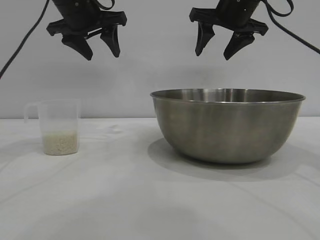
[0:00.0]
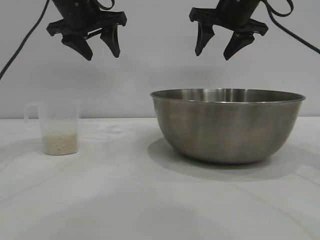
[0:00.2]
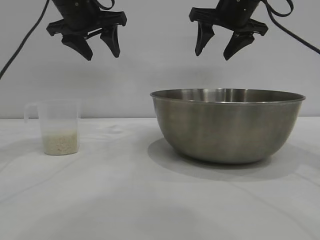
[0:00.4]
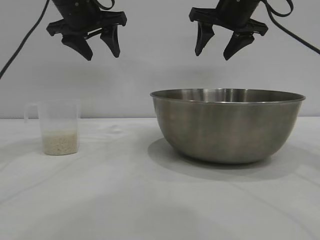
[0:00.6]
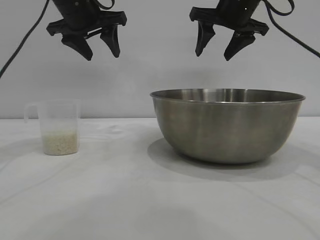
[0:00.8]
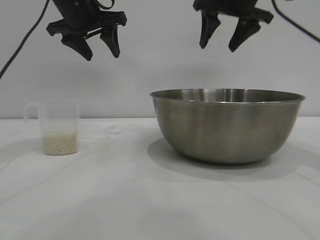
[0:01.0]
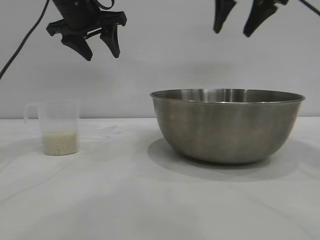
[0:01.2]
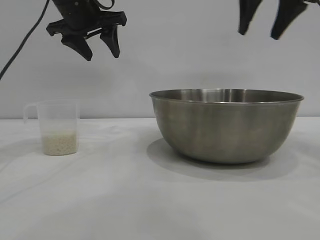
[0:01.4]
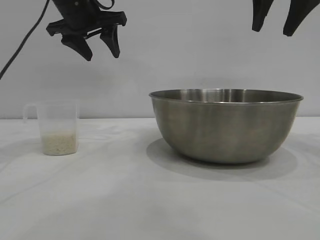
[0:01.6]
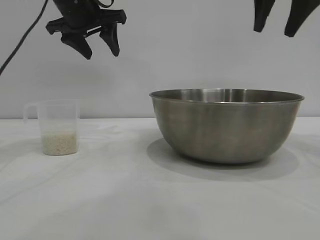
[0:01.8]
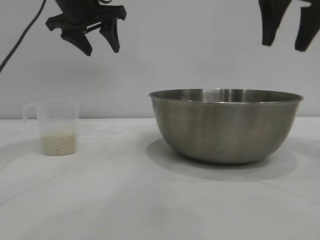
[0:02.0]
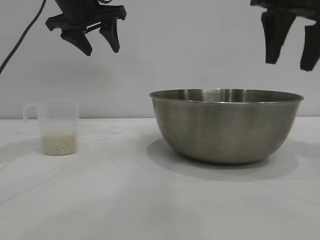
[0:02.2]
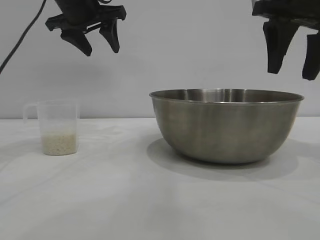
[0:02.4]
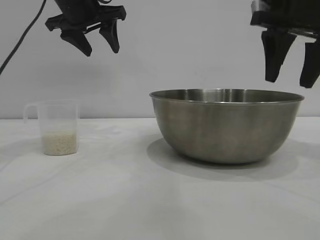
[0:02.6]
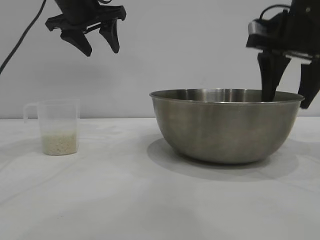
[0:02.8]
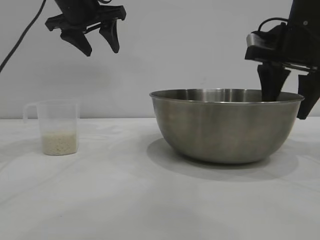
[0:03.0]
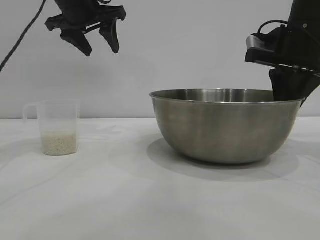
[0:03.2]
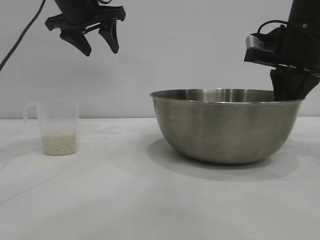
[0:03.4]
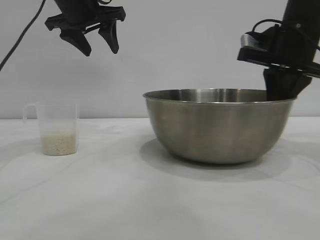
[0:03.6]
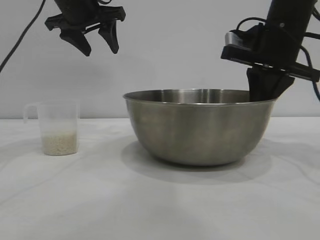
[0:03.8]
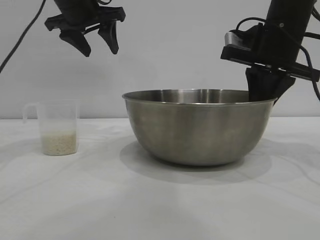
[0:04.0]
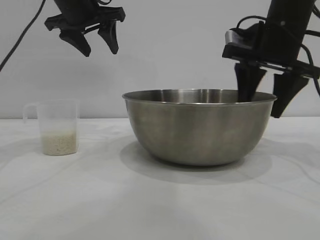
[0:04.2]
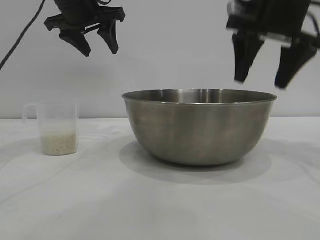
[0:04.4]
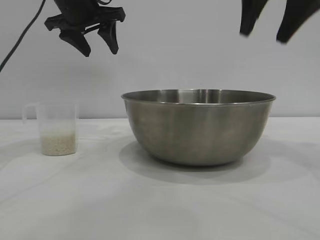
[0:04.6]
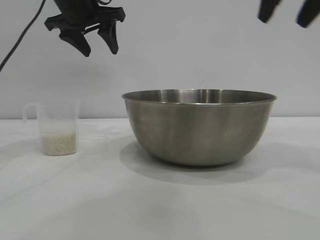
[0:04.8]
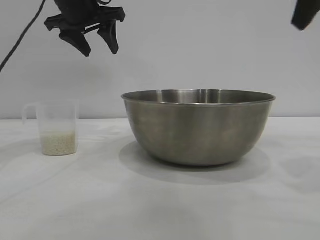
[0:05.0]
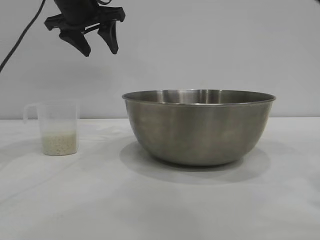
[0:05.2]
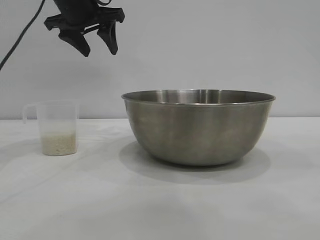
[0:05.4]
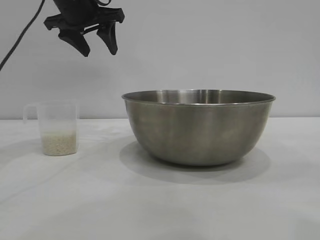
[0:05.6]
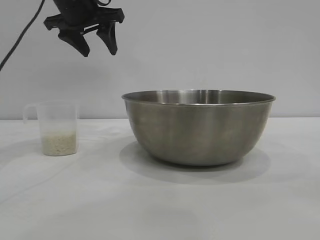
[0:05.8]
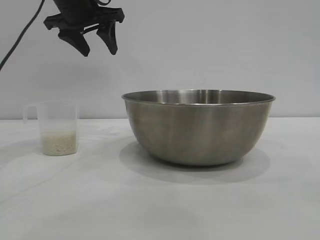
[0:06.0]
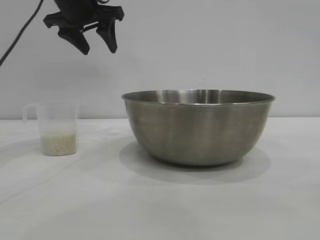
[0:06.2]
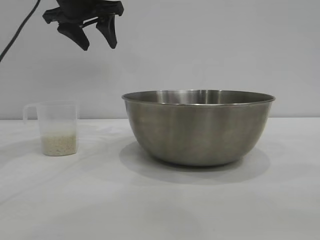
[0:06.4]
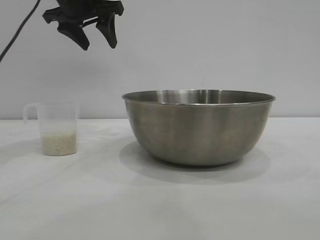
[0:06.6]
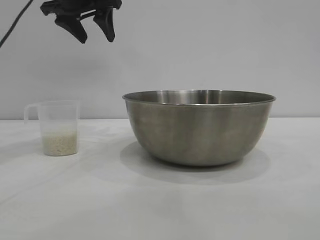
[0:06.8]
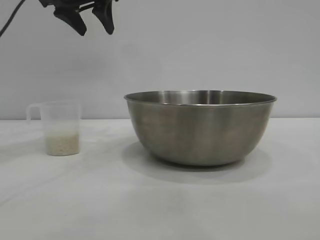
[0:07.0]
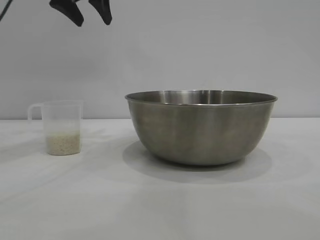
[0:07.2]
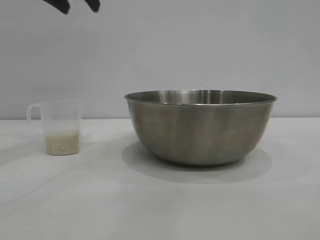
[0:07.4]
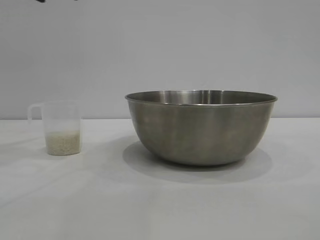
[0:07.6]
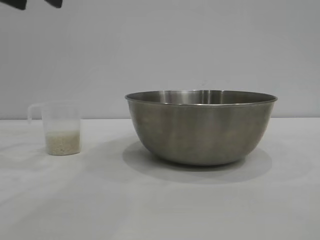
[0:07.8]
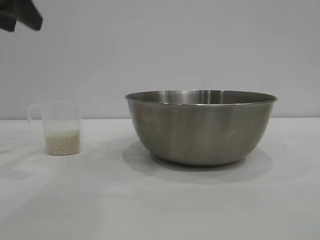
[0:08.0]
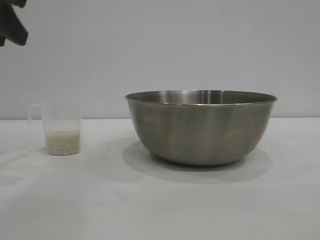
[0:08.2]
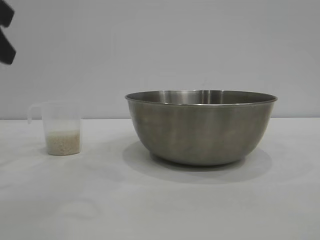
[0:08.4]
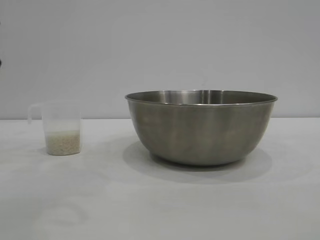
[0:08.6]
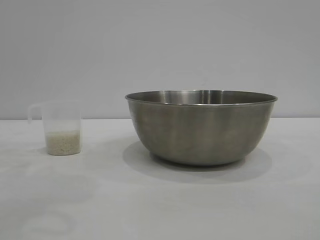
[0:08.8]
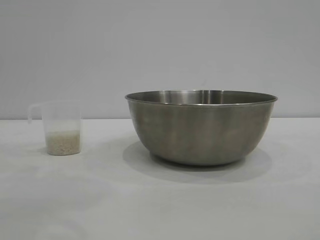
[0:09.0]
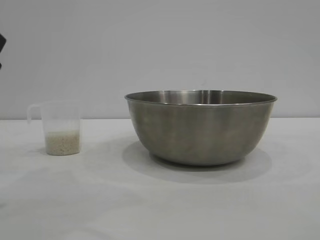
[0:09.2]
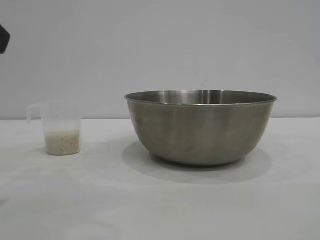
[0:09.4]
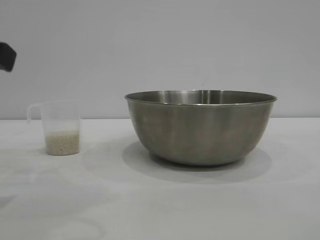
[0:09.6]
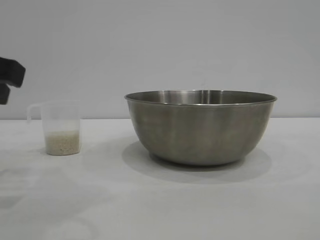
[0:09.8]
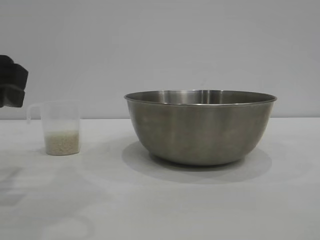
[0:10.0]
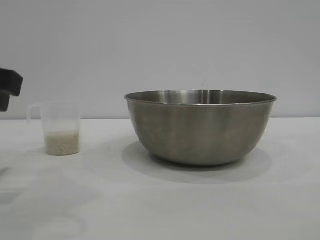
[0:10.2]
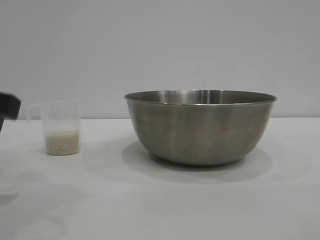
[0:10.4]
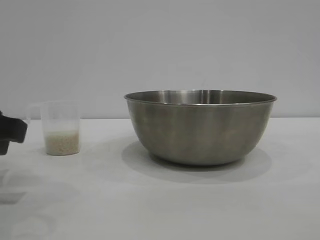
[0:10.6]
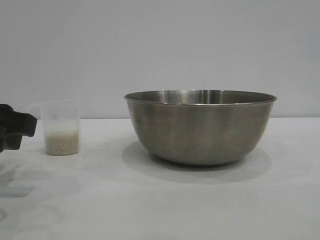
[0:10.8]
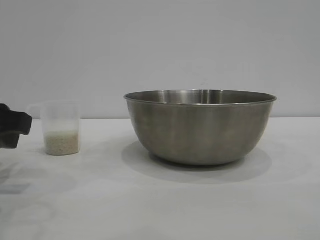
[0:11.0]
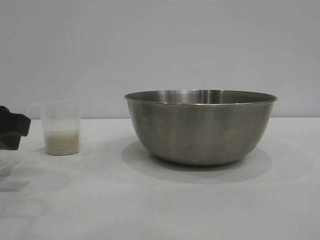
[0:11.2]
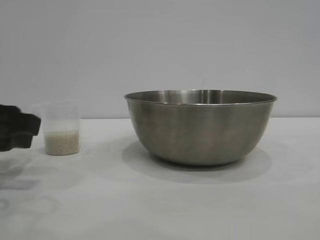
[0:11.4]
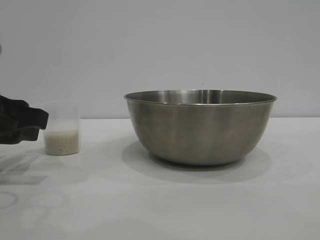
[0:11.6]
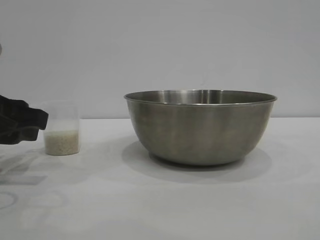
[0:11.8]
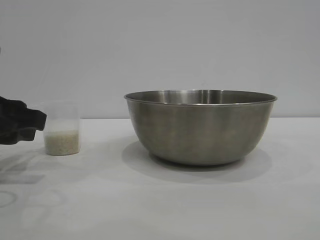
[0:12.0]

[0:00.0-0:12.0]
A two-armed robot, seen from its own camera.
Task of the whole recording: the right gripper grasp the rice container and place it in the center of the table, the left gripper grasp the rice scoop and pour the rice into the rice container.
Step, 0:00.0 to 0:04.2: Move the bowl to the center of view with the right gripper.

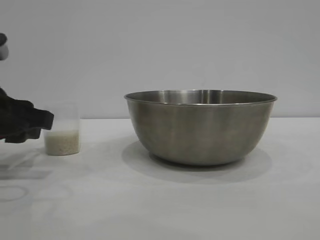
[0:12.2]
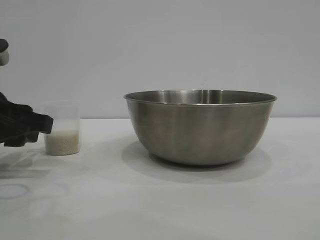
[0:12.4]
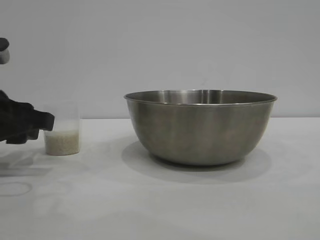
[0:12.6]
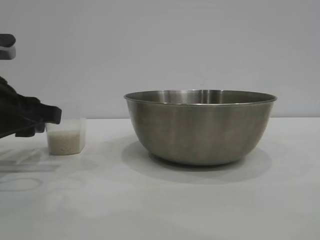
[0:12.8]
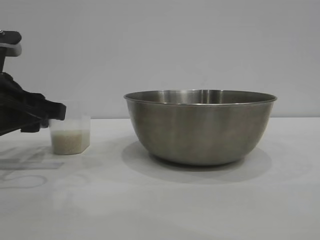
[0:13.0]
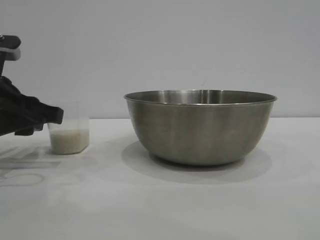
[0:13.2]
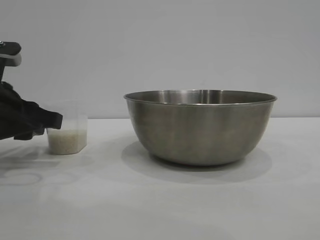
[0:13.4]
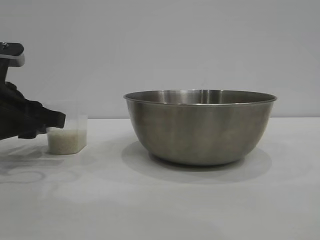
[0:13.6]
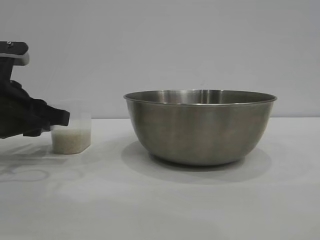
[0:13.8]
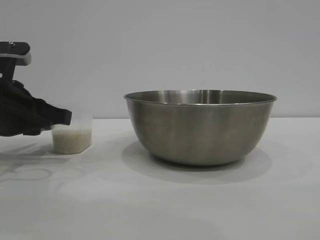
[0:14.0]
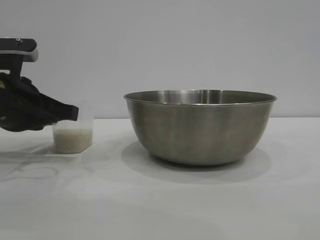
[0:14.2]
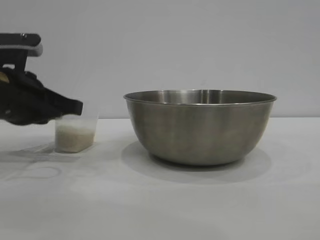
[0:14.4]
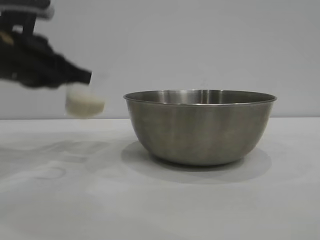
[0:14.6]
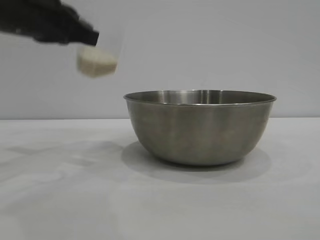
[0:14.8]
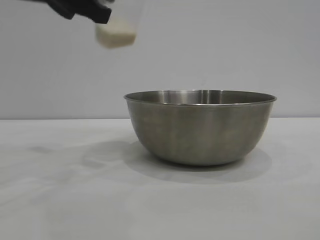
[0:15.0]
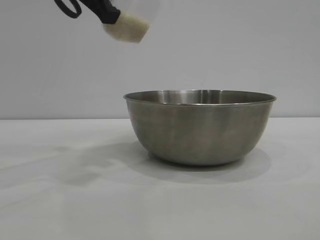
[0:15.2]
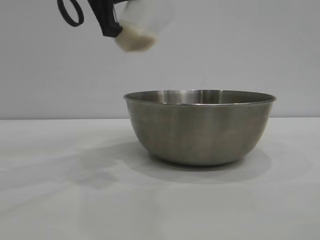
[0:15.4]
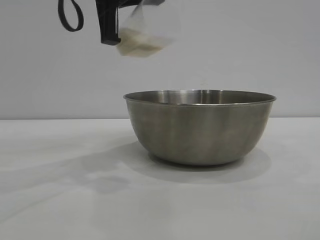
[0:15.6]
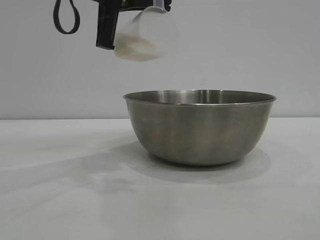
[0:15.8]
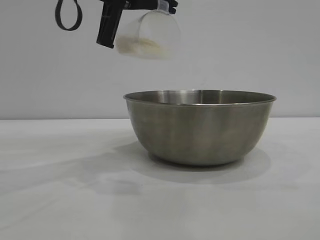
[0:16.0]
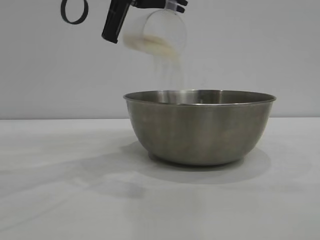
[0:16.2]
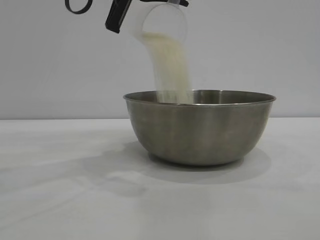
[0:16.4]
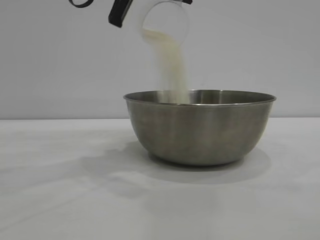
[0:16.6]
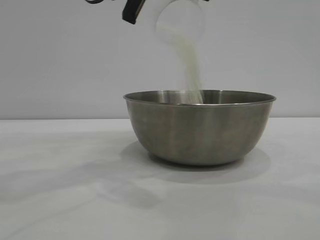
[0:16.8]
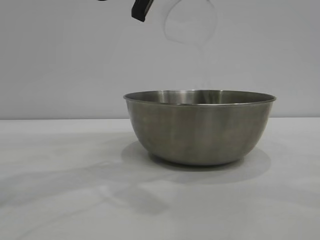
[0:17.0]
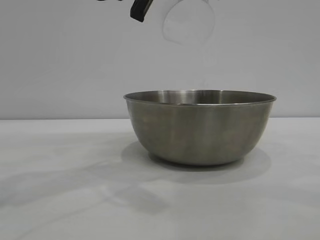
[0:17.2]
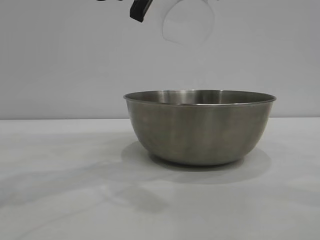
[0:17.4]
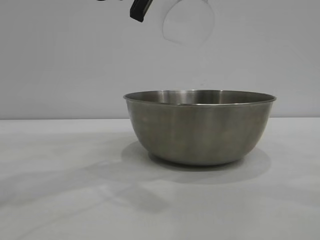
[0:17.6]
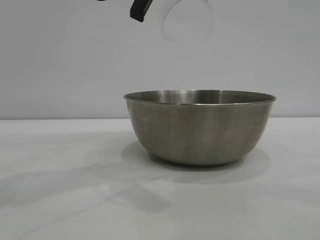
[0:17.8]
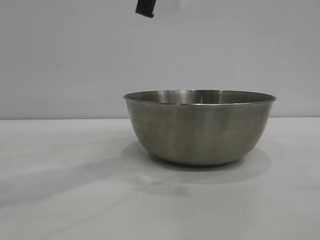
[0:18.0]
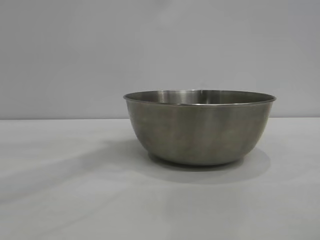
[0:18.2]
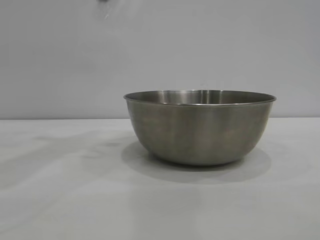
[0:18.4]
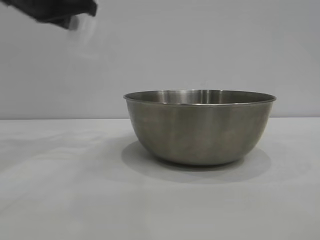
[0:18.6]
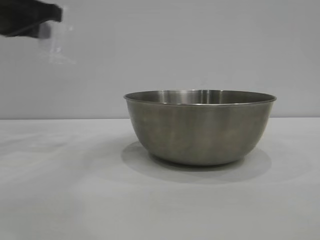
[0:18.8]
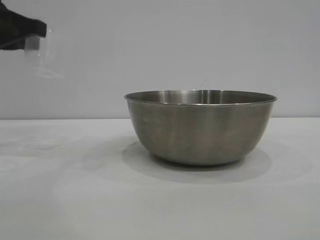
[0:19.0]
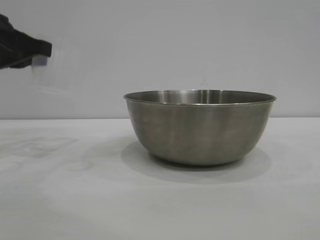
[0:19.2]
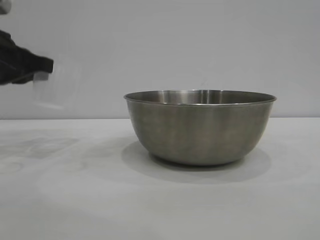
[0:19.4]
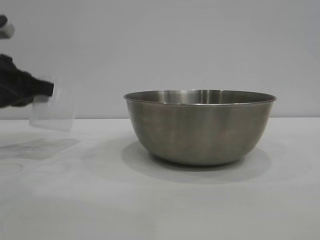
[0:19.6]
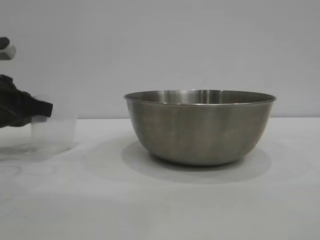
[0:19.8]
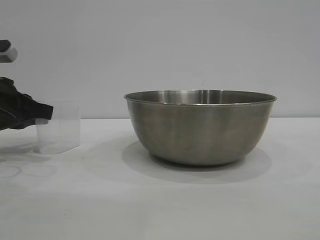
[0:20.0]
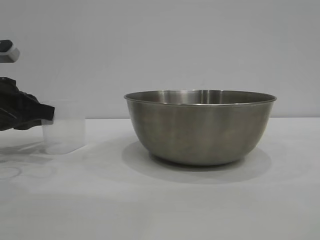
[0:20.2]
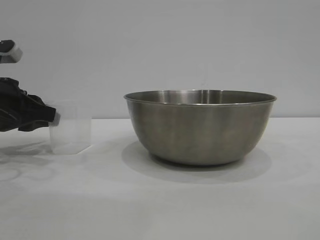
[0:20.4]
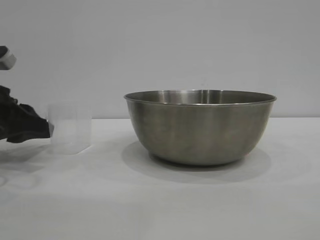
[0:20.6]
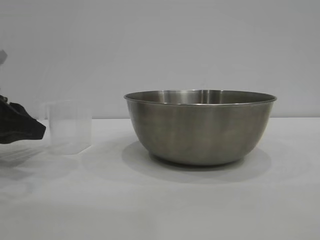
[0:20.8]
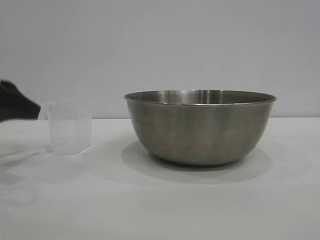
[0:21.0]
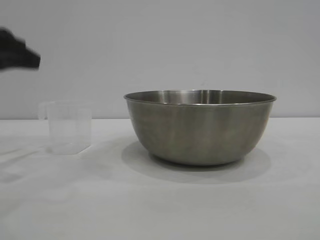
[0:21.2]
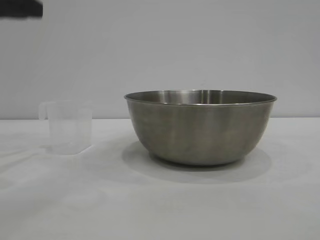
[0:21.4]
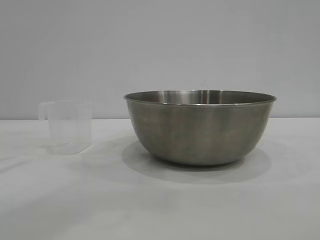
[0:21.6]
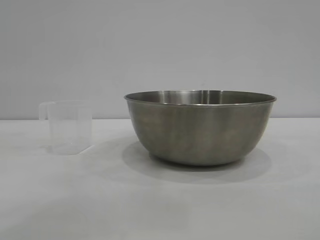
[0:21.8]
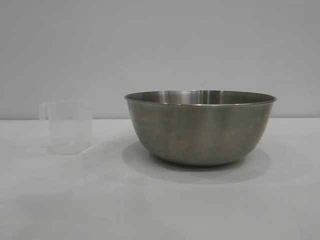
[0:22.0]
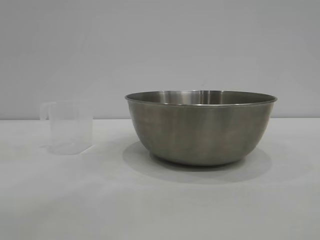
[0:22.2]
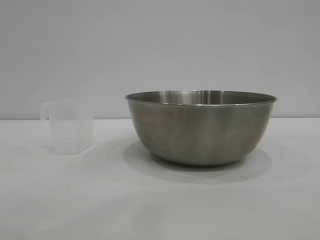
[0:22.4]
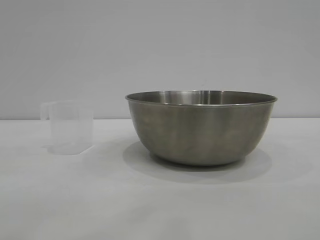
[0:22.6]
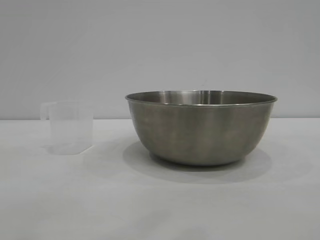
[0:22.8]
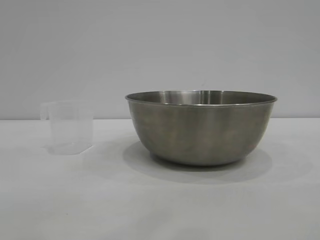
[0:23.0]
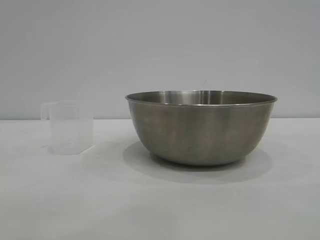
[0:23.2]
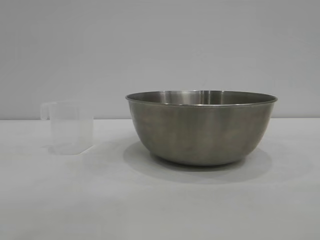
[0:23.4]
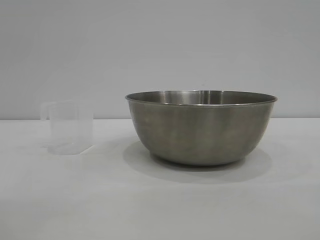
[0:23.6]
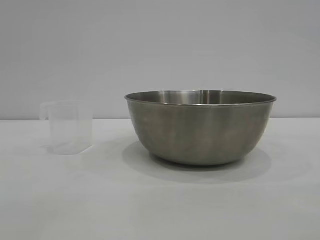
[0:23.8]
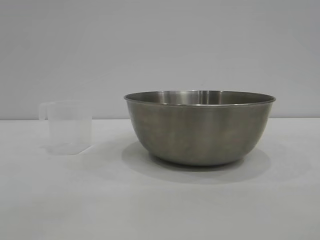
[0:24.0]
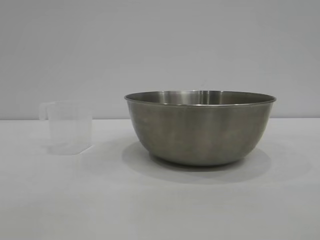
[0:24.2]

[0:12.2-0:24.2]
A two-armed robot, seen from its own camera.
Task of the whole recording: the right gripper grasp the rice container and place it in the center of the table, the left gripper grasp the rice scoop and pour the rice into the rice container.
Step, 0:12.2 to 0:14.4: Pick up the cup with rice in it with the left gripper.
Step, 0:14.6 to 0:17.2: Pour the rice from the cup into the bowl with the left gripper.
Step, 0:17.4 to 0:21.0: Place the cup on the table with the left gripper.
